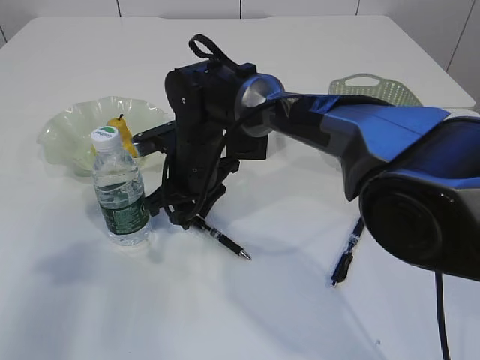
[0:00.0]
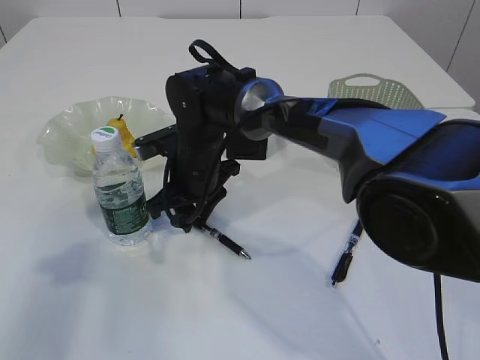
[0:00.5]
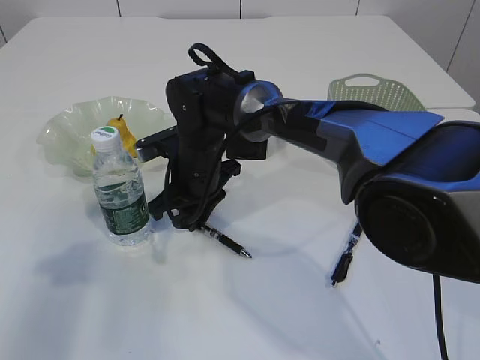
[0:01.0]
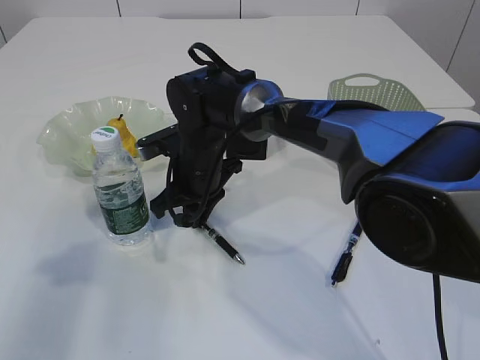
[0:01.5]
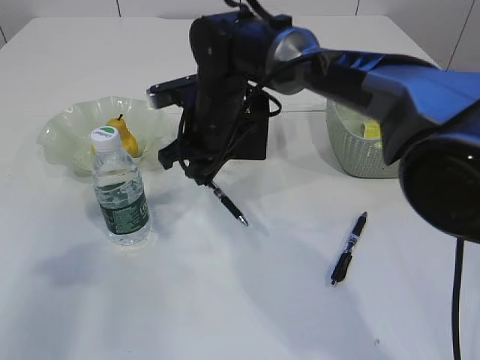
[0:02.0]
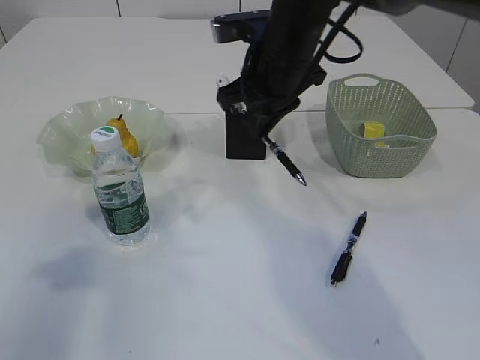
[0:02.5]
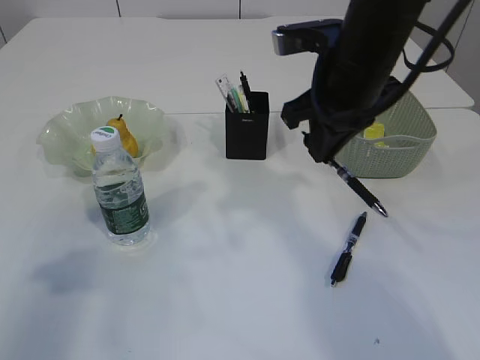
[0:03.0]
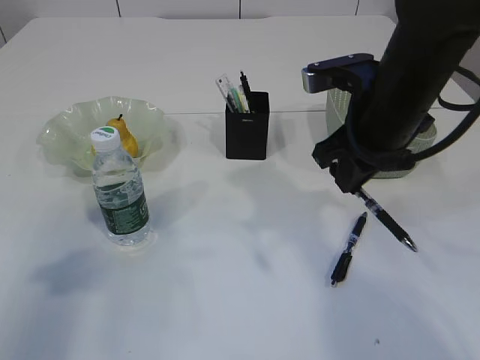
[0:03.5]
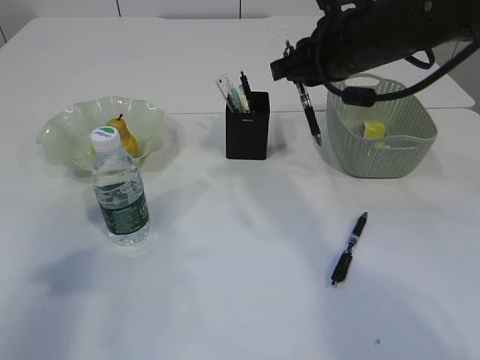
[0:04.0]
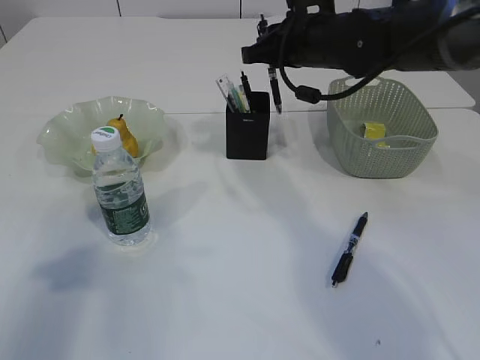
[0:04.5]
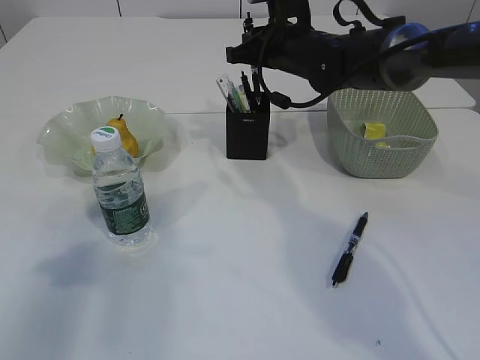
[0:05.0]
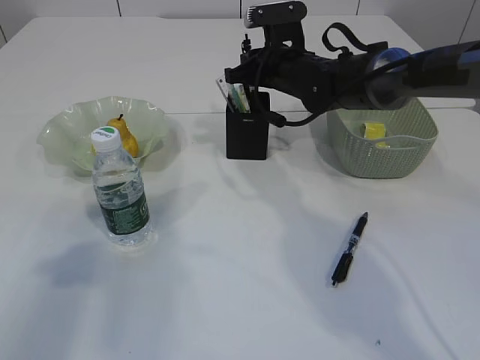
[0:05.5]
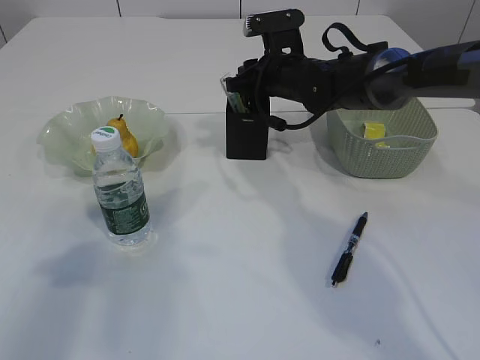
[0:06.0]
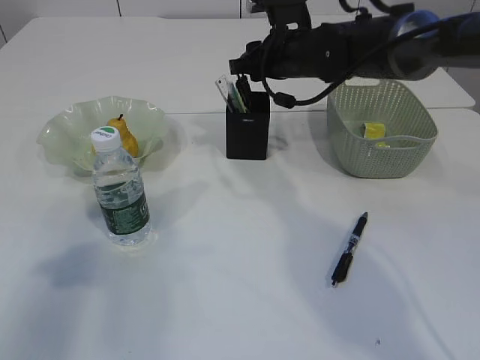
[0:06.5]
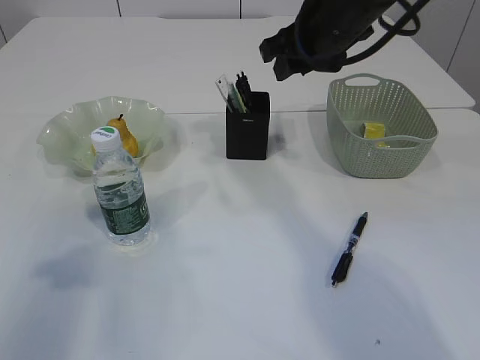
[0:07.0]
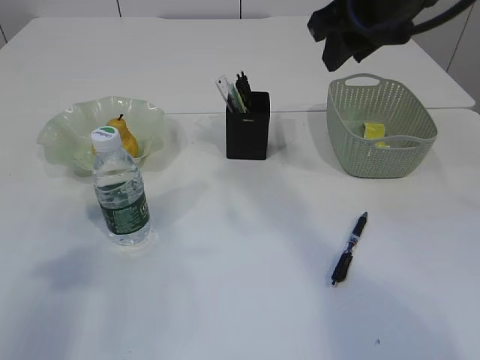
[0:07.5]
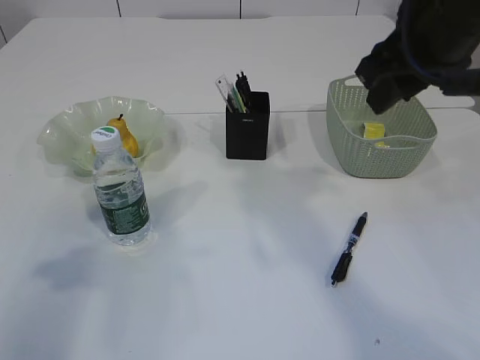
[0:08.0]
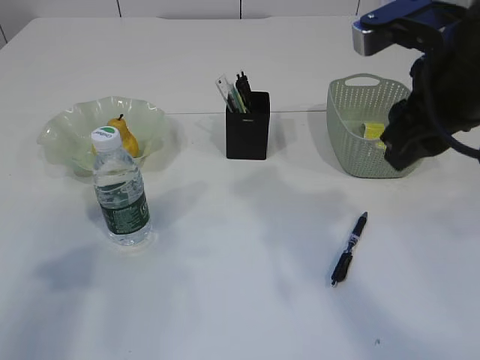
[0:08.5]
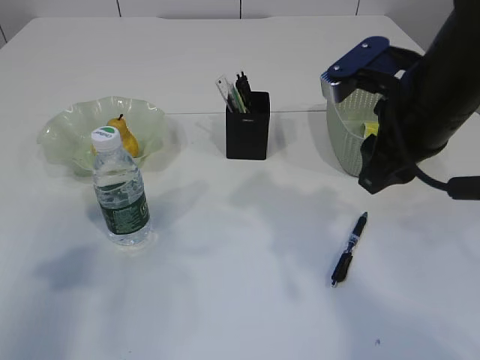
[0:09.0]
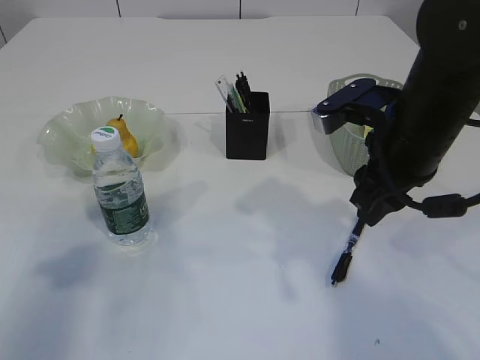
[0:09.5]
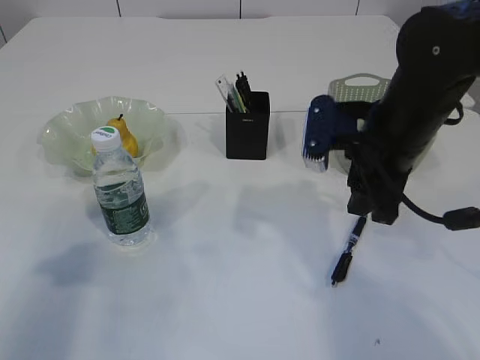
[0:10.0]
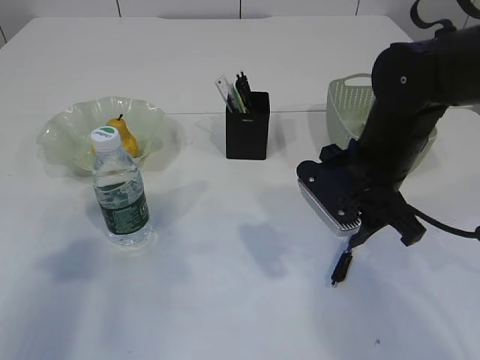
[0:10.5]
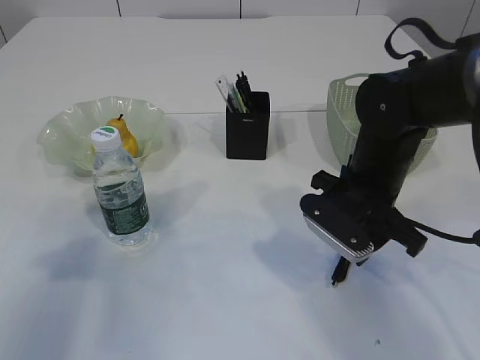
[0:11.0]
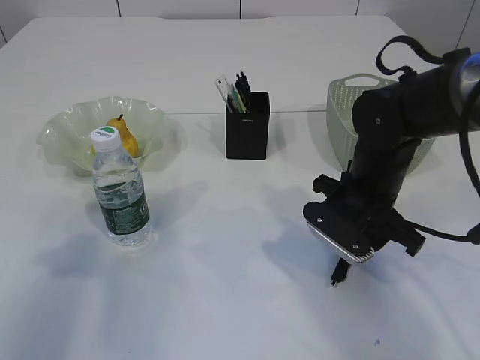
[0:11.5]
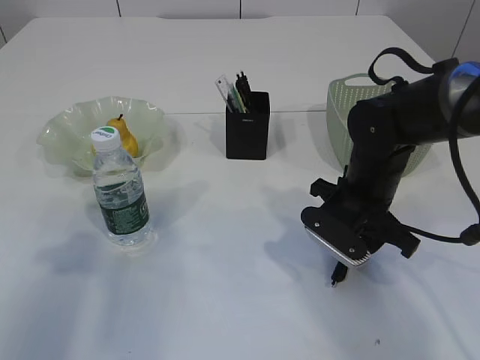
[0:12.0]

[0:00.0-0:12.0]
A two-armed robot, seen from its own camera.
Step, 0:00.0 to 0:02.0: Pick up the pen with right arm.
Step, 0:02.5 to 0:07.0: Place the pen into the pen holder.
0:00.0 to 0:02.0: The right gripper goes approximately 5 cm upward.
0:02.0 to 0:04.0: The right gripper is displaced to the right and upward by about 15 cm.
0:04.0 to 0:06.0: The right gripper is displaced forward and downward by about 15 cm, and opens.
0:06.0 to 0:08.0: The right gripper is displaced backward and upward by roughly 25 cm.
0:08.0 to 0:10.0: The right gripper shifts approximately 15 cm downward.
0:10.0 to 0:12.0: The right gripper shifts about 10 cm downward.

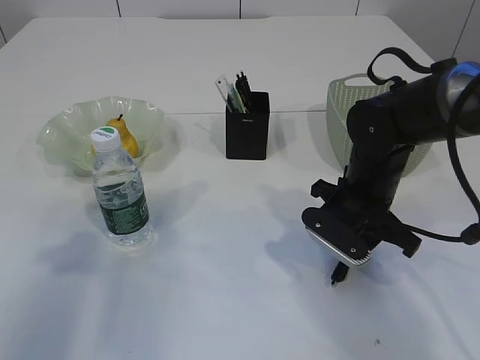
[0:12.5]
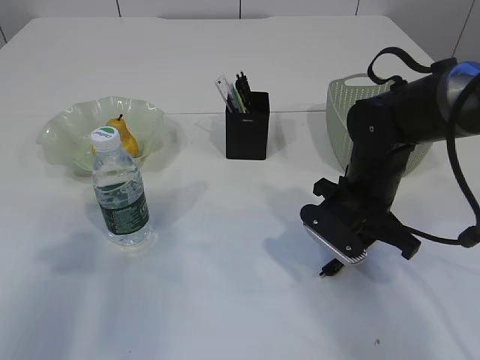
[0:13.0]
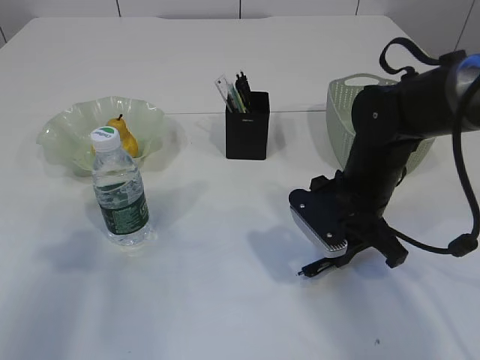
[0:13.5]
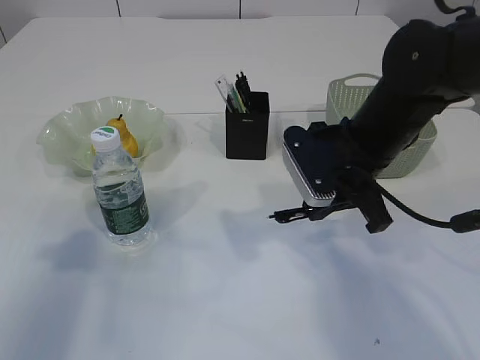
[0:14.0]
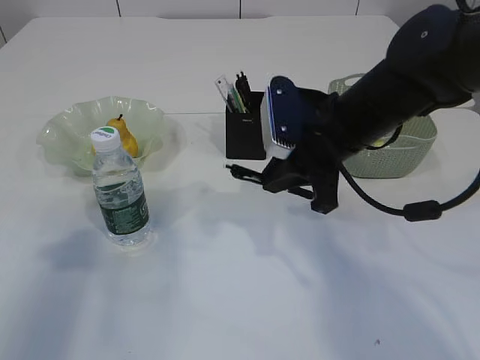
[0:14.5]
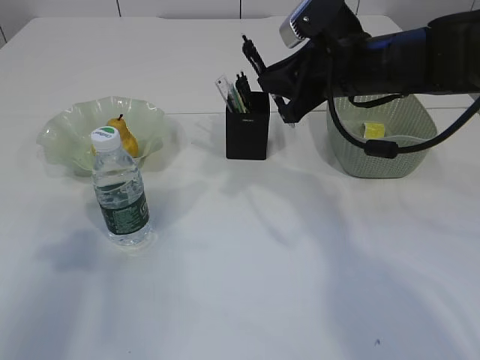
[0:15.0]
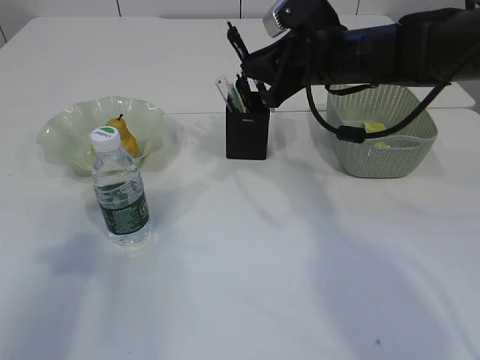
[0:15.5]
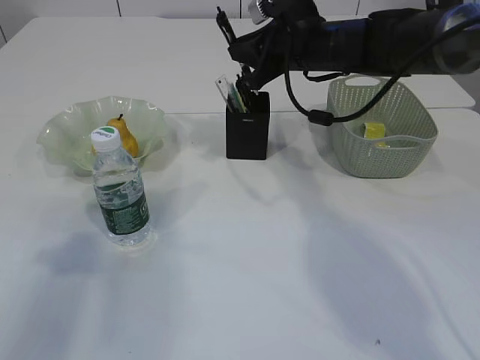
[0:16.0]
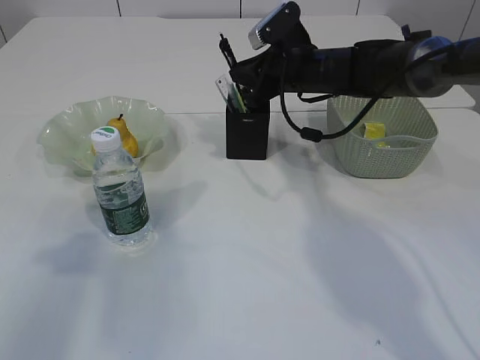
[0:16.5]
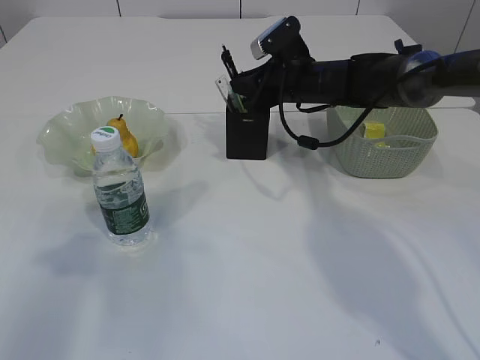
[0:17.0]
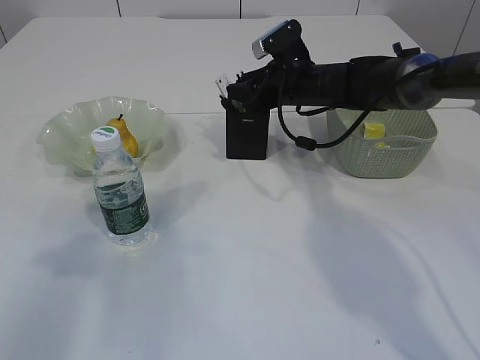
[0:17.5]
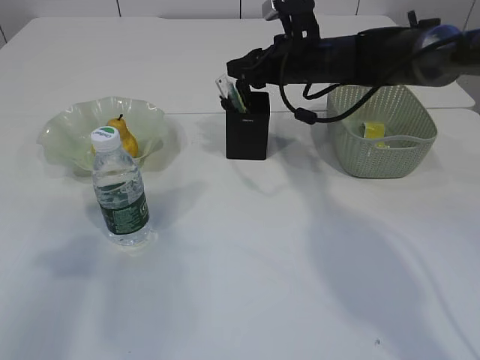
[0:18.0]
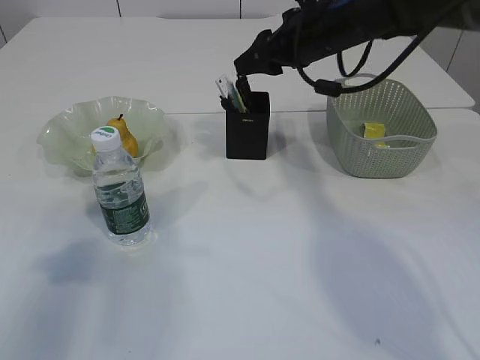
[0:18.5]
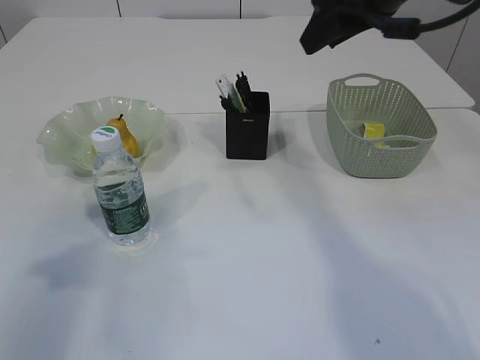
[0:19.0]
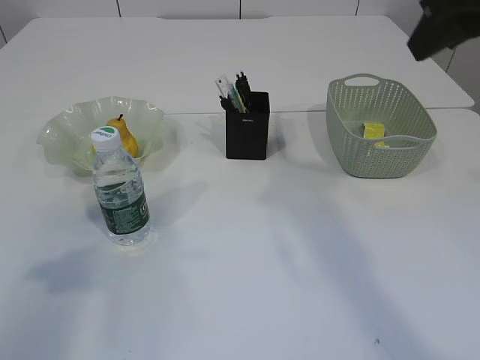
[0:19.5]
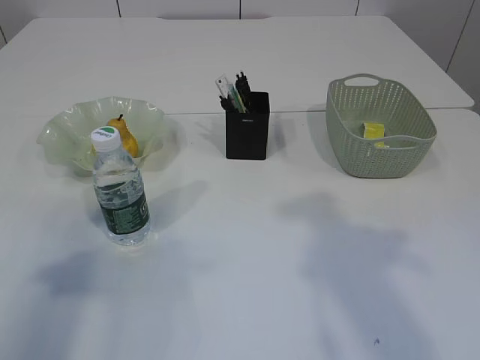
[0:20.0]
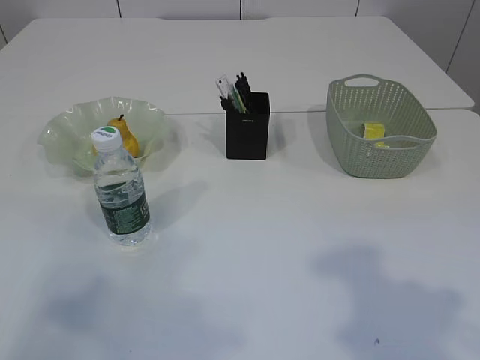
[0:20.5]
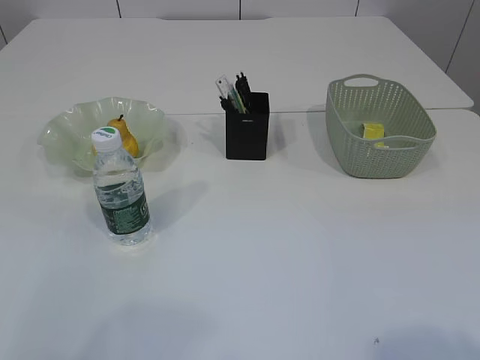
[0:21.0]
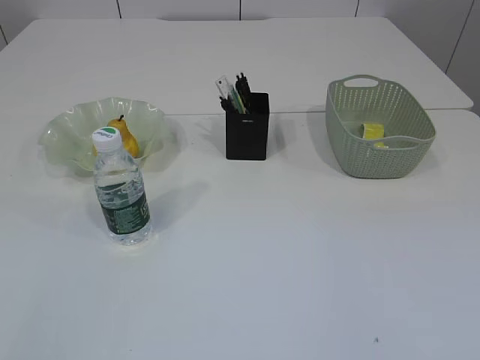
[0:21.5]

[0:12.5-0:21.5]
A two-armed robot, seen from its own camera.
Step, 0:14.5 to 0:18.5: Place the pen into the pen holder.
0:12.5 to 0:14.5: The right gripper moves upward, about 10 cm.
0:14.5 to 0:17.0: The right gripper travels forward by roughly 15 cm.
0:17.0 to 0:19.5: The right gripper goes approximately 30 cm backward, upward and to the right, and opens up.
0:19.5 to 0:21.5: Both grippers travel together backward, roughly 30 cm.
